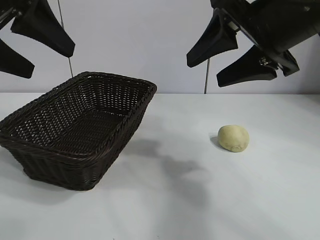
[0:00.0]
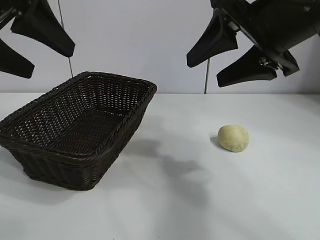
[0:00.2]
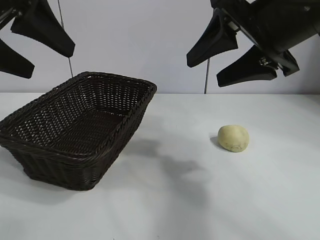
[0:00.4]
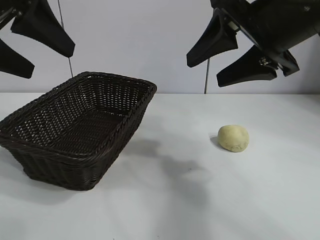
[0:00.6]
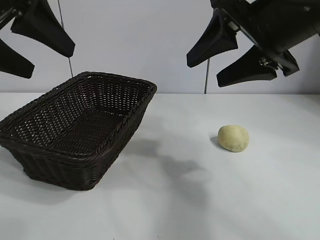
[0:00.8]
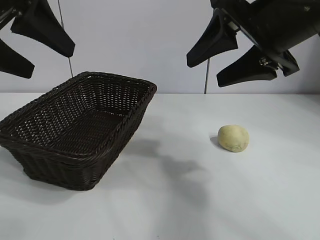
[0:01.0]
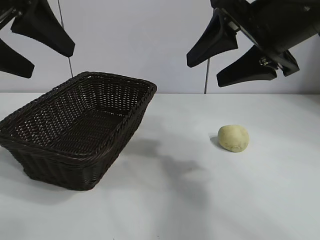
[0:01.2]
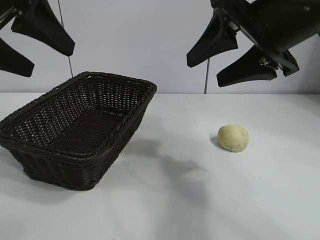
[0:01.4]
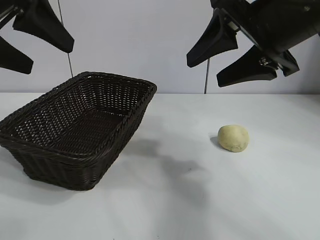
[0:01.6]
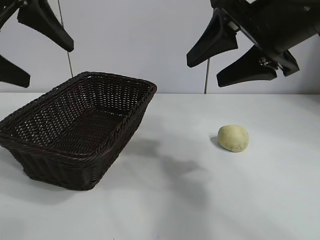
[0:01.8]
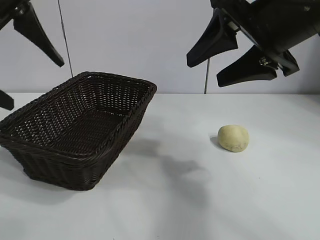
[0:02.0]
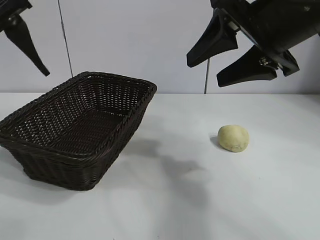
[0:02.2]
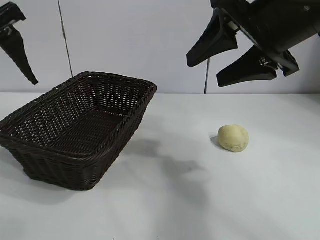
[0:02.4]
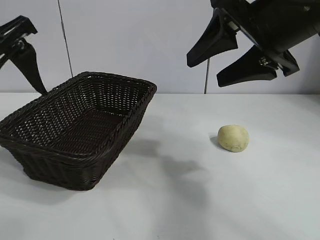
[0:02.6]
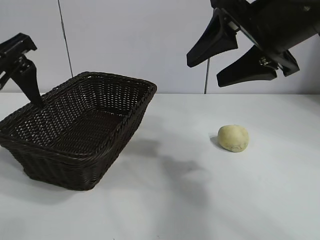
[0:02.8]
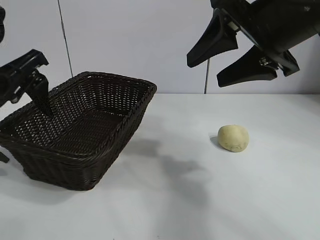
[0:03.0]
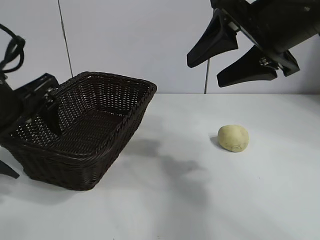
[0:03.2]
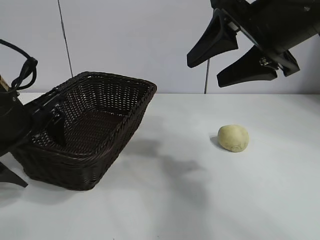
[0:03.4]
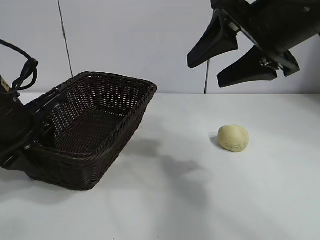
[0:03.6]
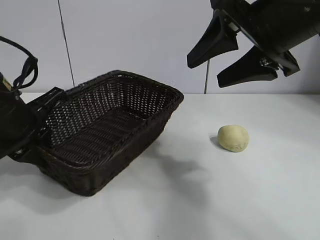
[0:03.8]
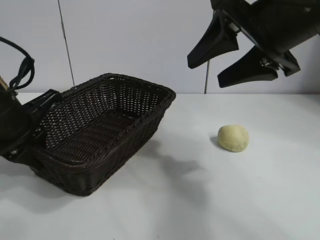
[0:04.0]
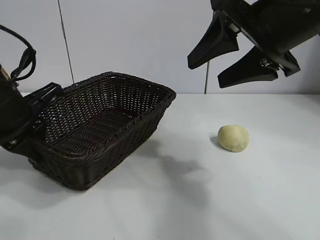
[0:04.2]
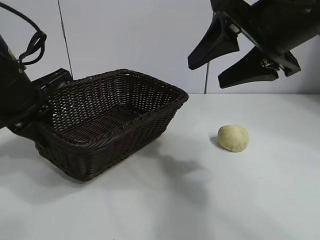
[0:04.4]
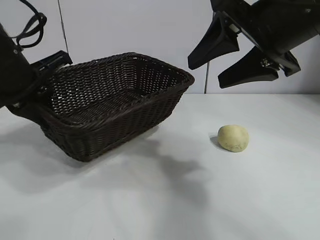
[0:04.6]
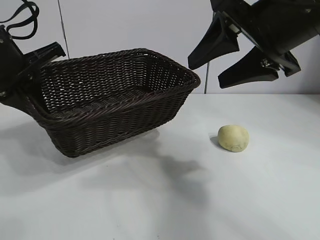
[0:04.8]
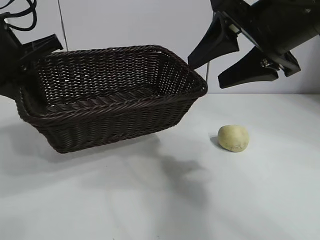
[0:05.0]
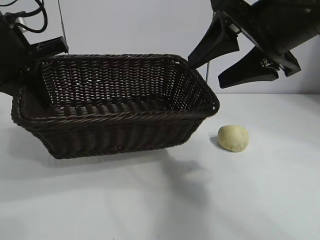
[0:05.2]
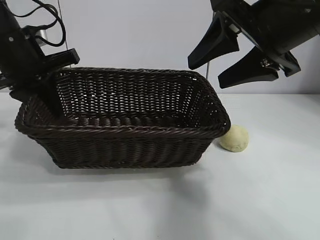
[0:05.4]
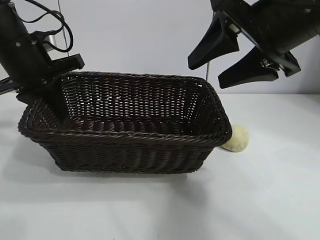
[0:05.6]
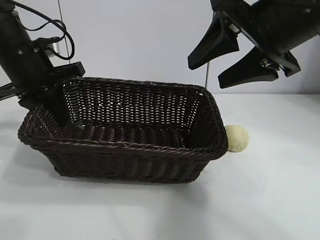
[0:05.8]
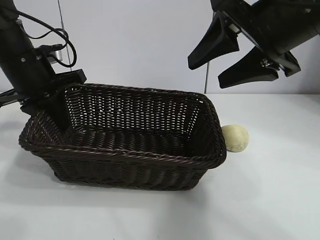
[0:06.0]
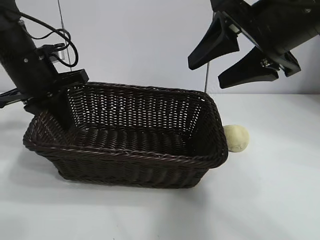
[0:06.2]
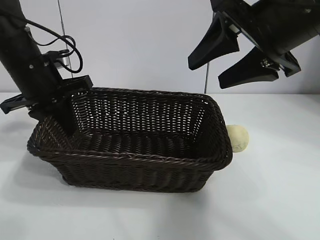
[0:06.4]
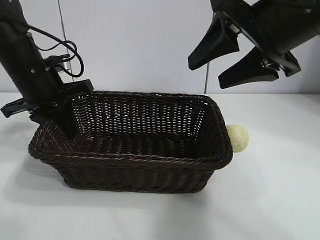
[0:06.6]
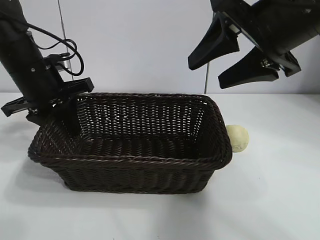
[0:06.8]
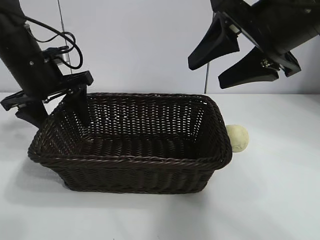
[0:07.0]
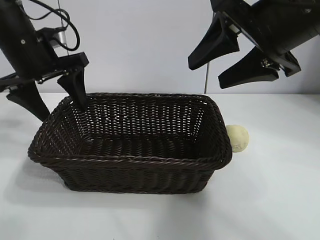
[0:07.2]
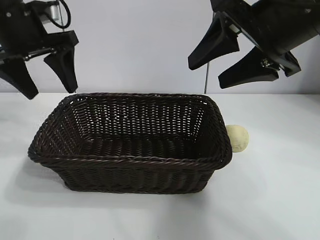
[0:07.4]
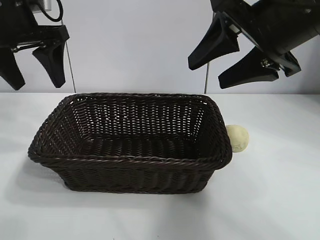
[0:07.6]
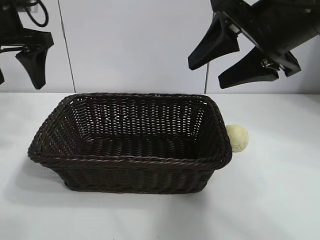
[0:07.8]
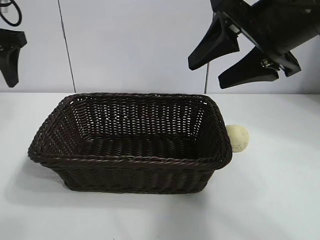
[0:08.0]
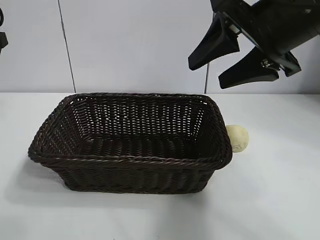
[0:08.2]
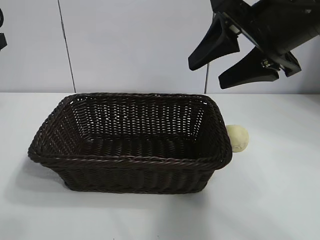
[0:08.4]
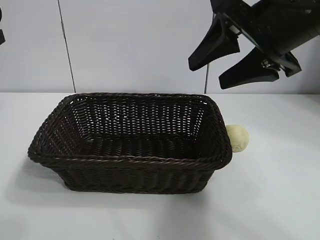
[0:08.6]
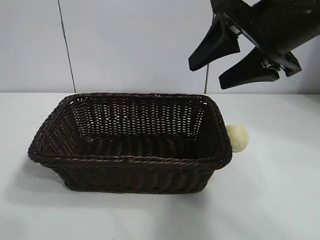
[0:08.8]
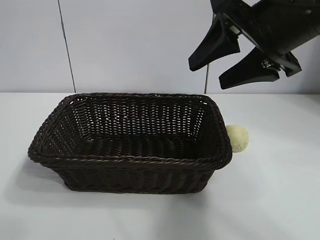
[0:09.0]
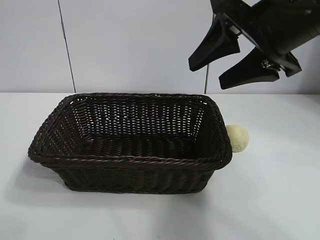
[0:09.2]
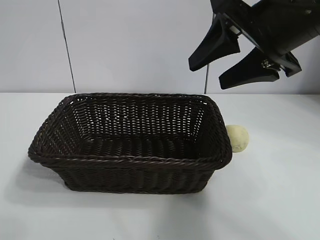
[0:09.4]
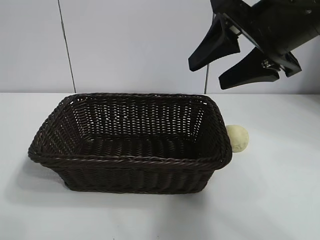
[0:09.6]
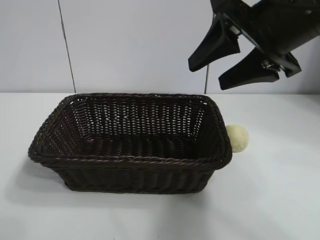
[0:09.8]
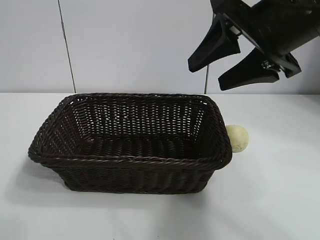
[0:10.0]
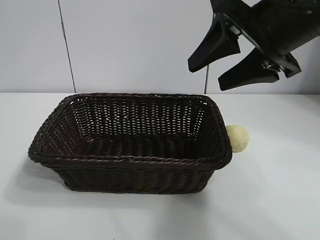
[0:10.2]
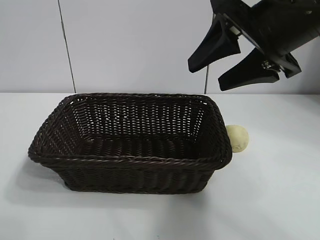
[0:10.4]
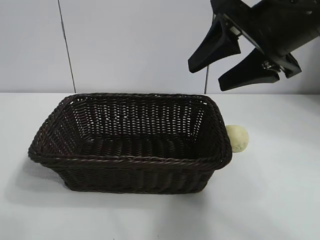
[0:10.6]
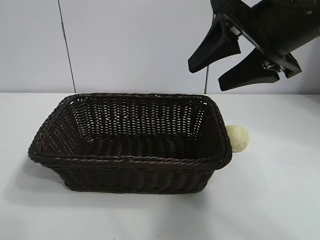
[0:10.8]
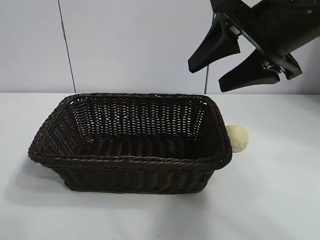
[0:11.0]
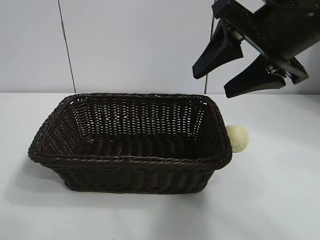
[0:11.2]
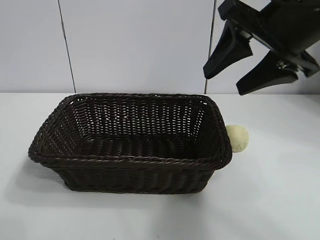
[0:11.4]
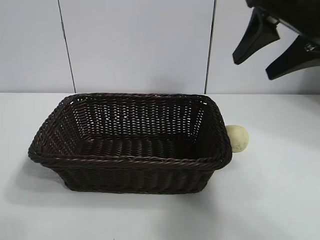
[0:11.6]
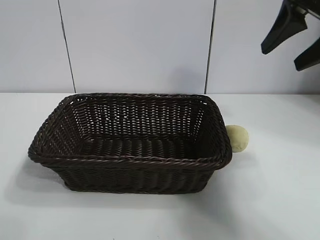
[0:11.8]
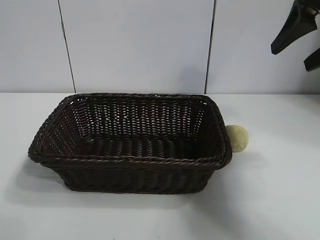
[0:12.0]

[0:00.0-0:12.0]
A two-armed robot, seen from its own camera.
Task of the whole recording: pick up the egg yolk pastry and put it into the basket.
Step, 0:01.4 to 0:03.6: Grasp the basket with left gripper.
Step, 0:04.0 to 0:07.0: Place the basket in the center of view with left gripper.

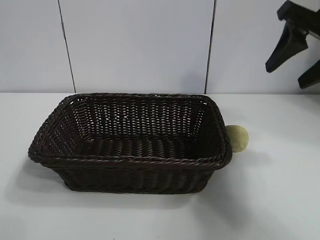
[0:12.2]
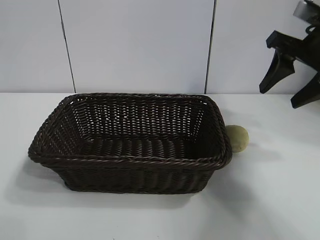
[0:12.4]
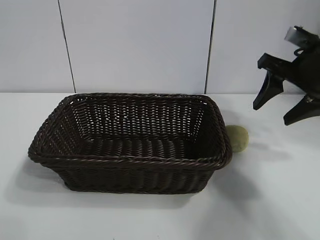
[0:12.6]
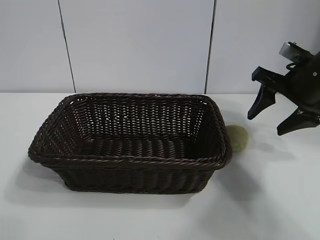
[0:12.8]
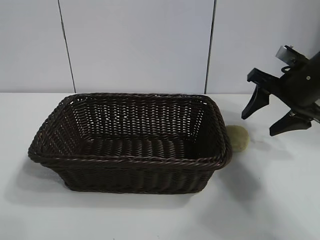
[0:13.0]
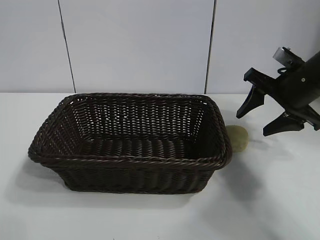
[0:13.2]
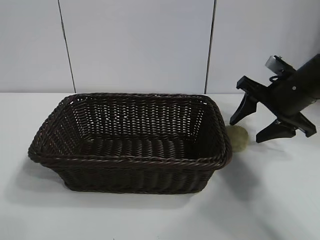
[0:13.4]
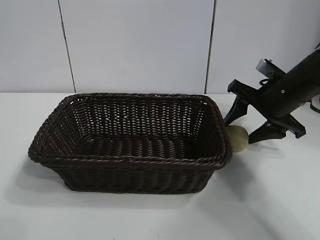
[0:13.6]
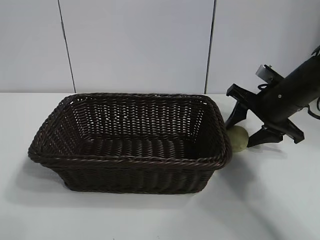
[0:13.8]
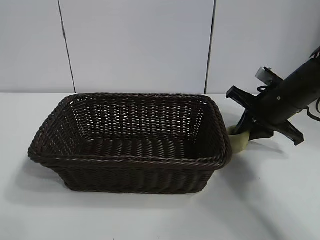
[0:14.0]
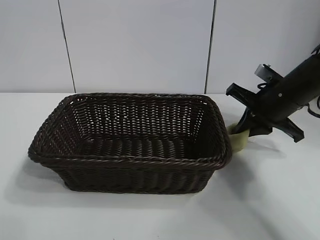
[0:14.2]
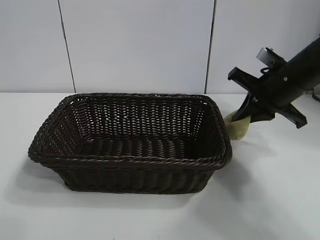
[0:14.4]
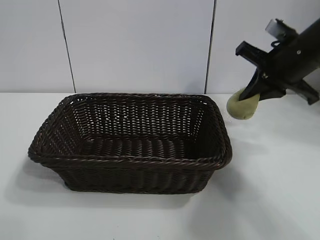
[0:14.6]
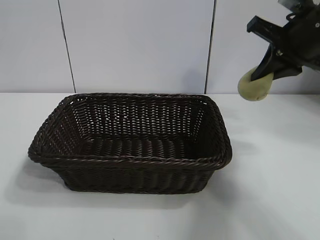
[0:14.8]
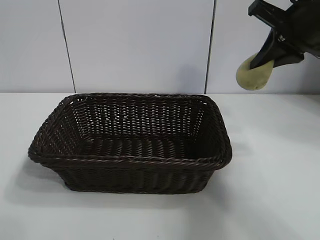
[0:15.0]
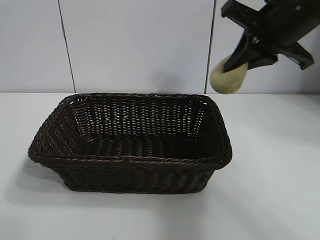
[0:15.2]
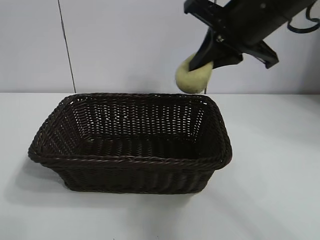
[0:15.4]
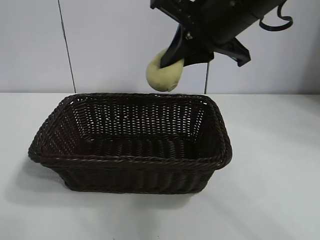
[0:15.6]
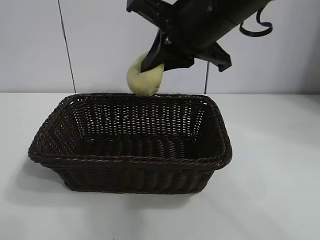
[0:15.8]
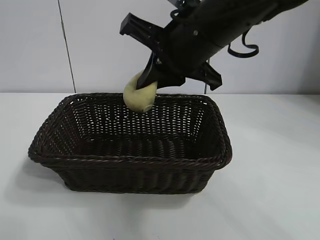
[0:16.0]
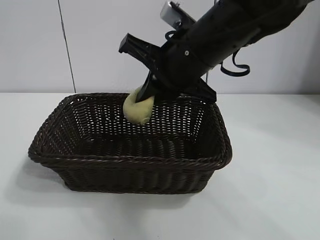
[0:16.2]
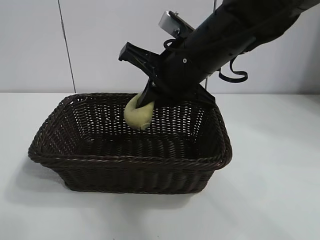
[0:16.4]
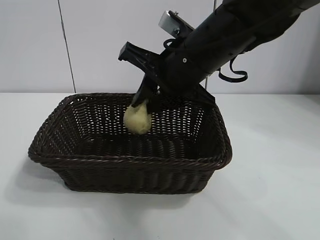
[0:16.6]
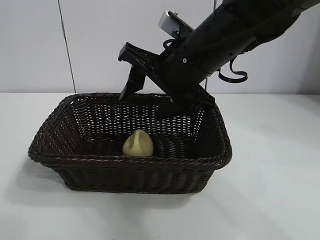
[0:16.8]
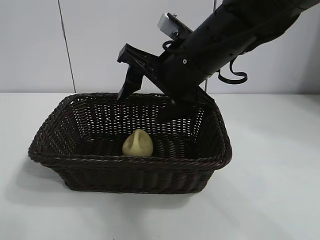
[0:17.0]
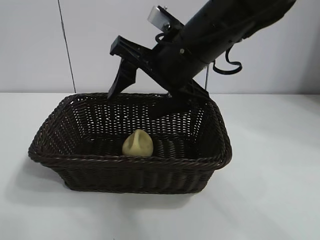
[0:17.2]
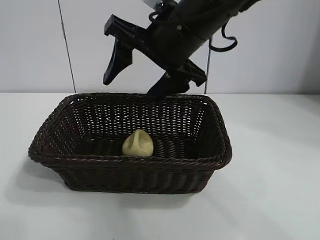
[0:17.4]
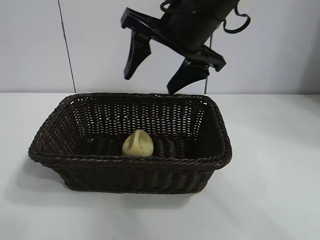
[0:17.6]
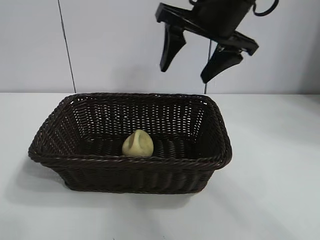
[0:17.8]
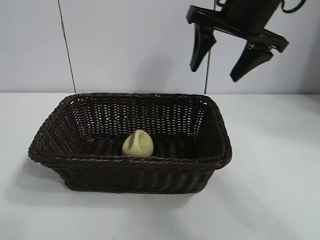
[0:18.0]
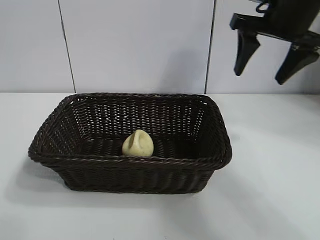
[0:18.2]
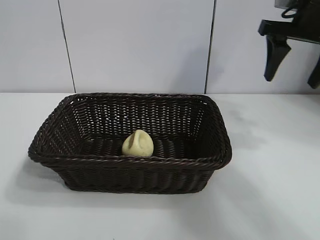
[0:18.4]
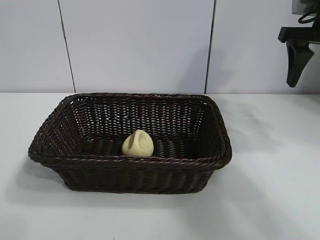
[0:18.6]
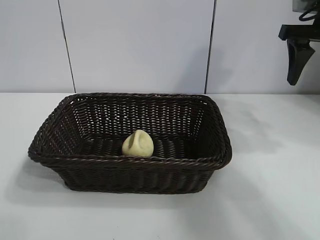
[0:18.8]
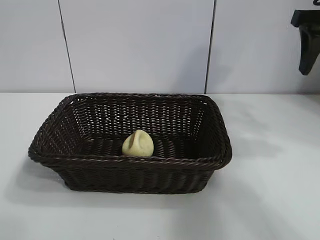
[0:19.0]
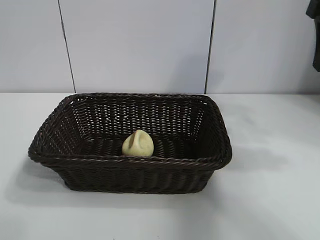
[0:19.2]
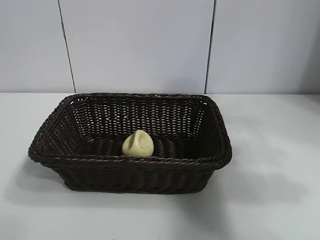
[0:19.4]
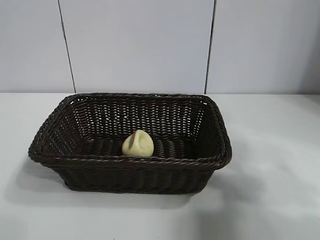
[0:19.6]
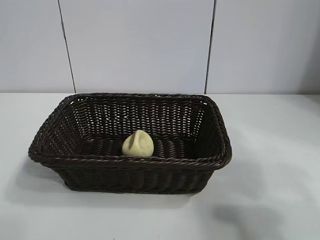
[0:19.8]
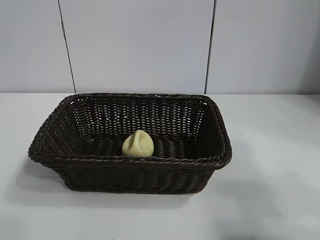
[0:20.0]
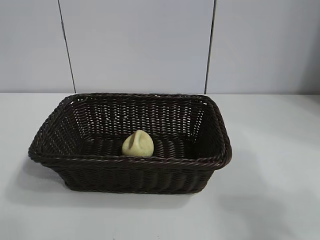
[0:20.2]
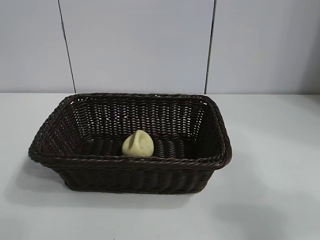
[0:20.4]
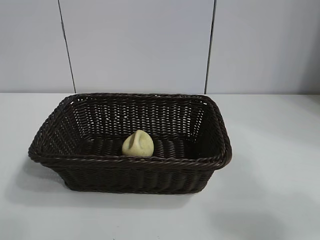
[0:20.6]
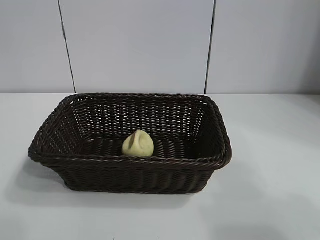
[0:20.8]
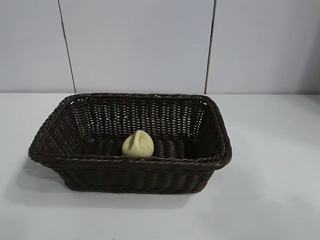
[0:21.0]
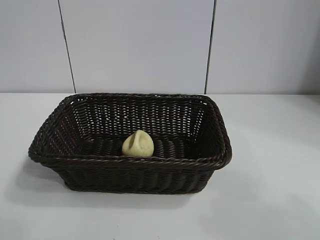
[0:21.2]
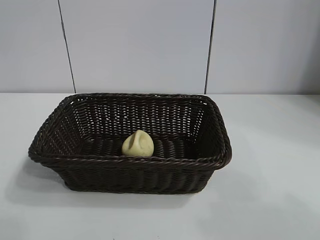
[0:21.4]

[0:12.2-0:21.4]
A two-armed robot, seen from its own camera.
Task of the whole recording: pick up the egg yolk pastry and put it into the basket.
Step, 0:14.2 to 0:16.8: Place the egg yolk pastry in the basket with right gripper.
